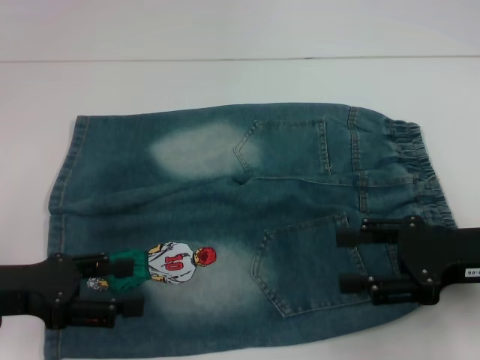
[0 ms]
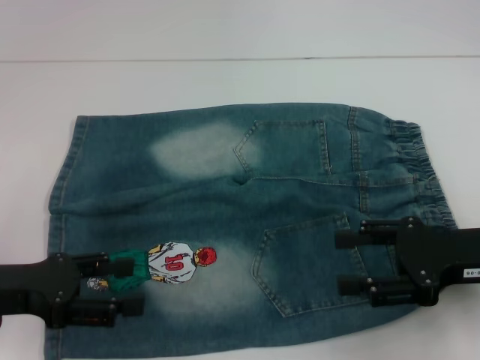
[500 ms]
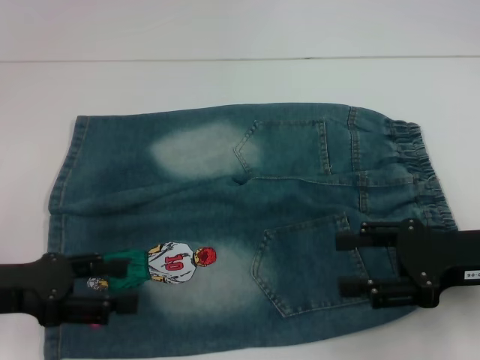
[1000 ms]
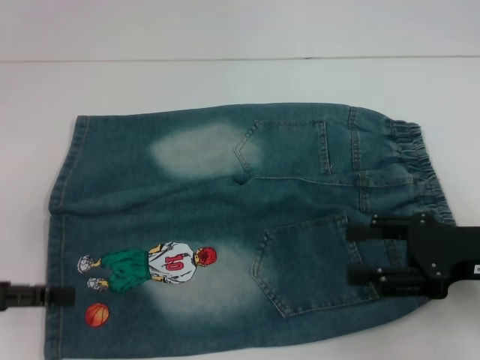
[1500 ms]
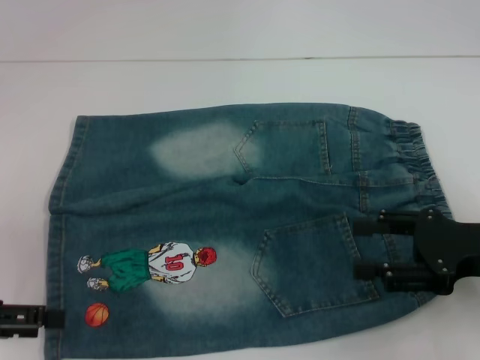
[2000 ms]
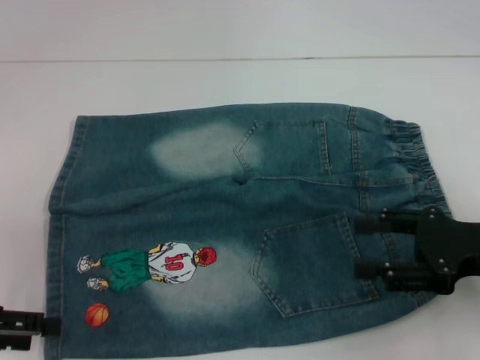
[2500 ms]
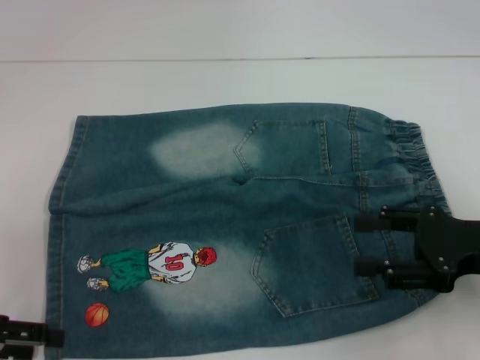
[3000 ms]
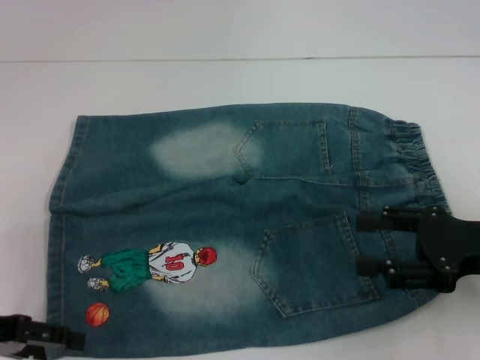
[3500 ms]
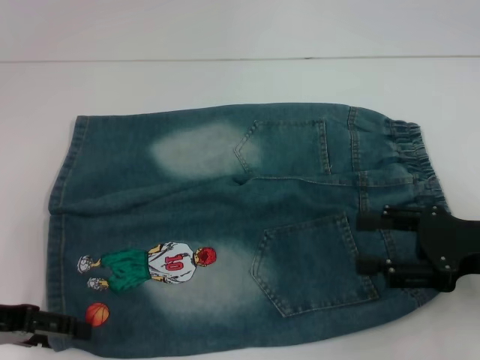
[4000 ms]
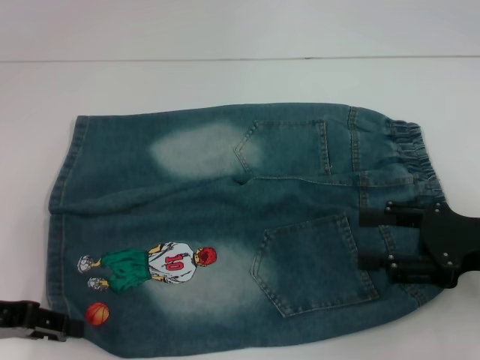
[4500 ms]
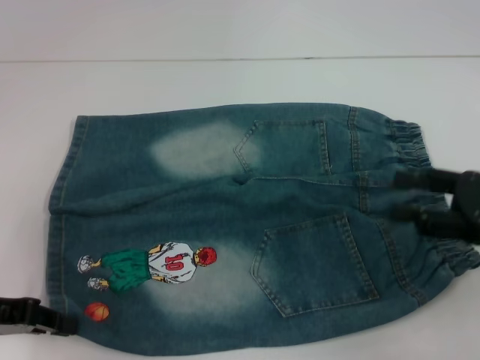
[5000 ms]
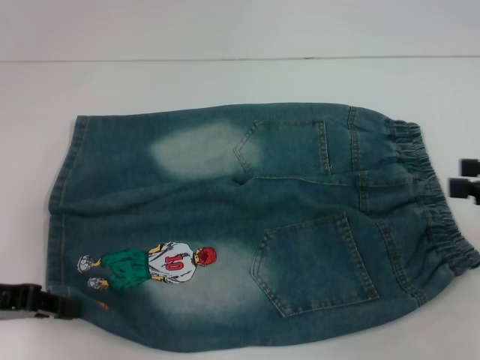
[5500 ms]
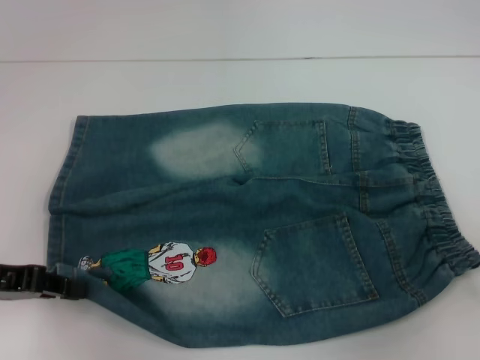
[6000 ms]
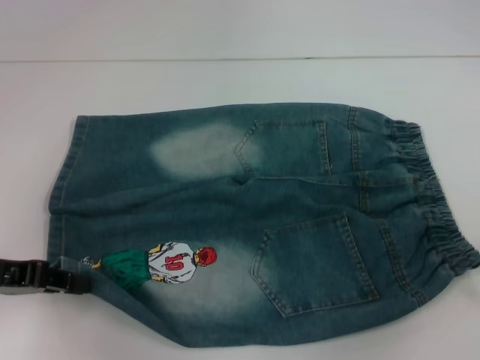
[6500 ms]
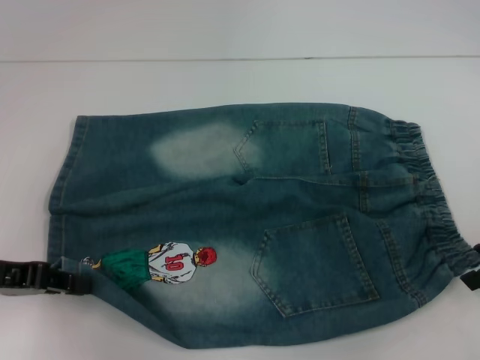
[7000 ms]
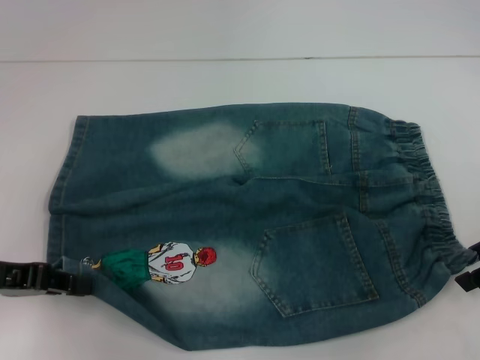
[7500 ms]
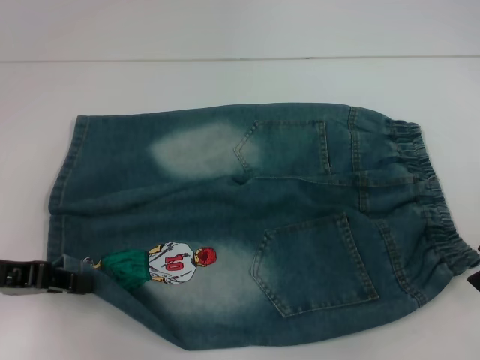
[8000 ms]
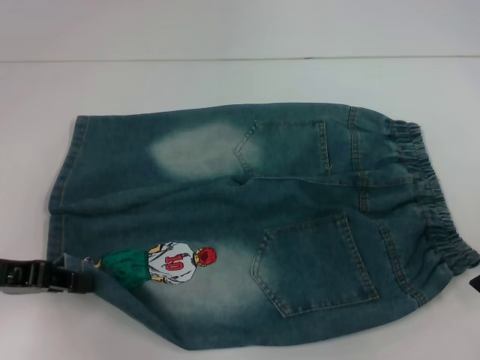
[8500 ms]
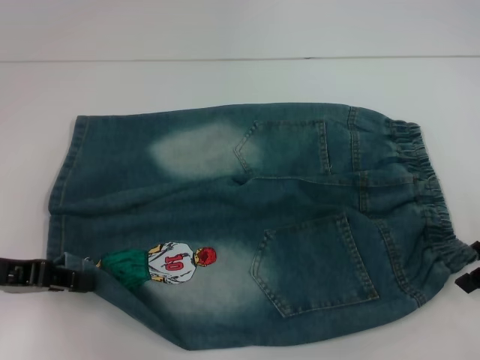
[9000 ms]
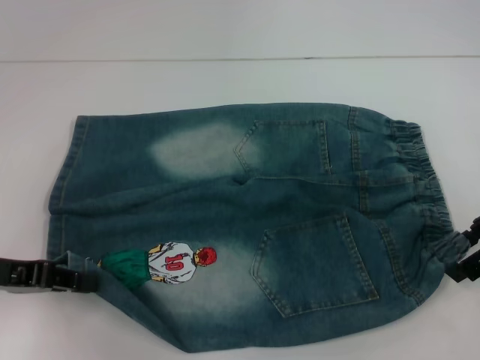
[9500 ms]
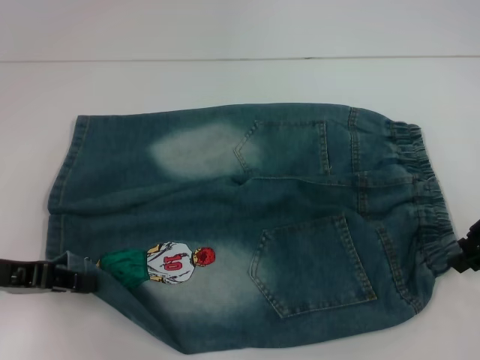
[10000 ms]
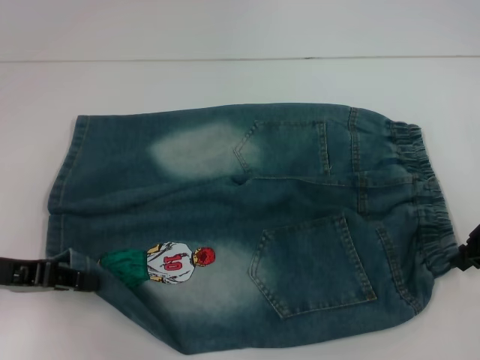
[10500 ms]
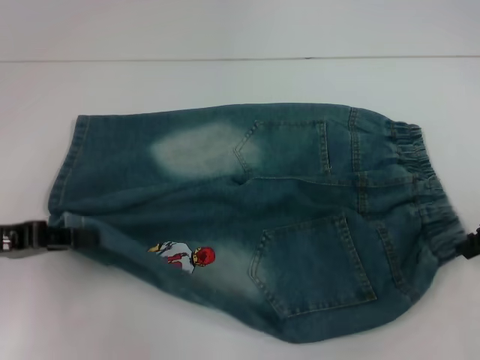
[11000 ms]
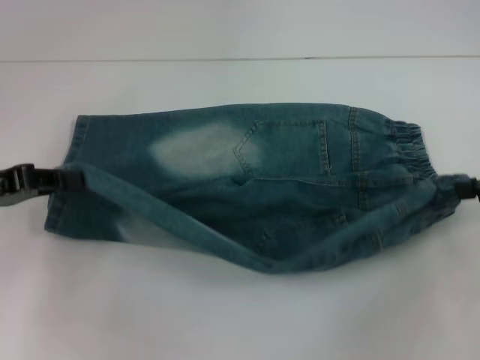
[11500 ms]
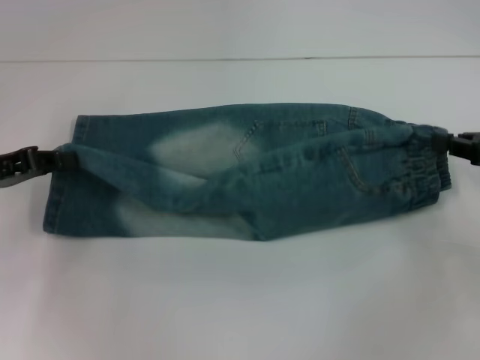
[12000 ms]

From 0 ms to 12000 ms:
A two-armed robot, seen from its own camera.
Step, from 0 ms to 4500 ms: Grab the lower left pant leg with your left hand.
Step, from 5000 ms to 10000 ms: Hold the lower right waistband with your right hand.
From 0 ms to 2000 ms: The left gripper moves to the left, approximately 5 cm.
From 2000 ms to 4000 ms: The grippers stay close to where they were, moving slightly.
From 4000 ms to 6000 ms: The right gripper heads to the right and upward, covering some 10 cm, while the left gripper closes up.
From 8000 ms to 10000 ms: The right gripper closes.
From 10000 ms to 12000 ms: The left gripper changes place by some 5 cm; the right gripper shifts roughly 5 cm to the right, and closes its fingers.

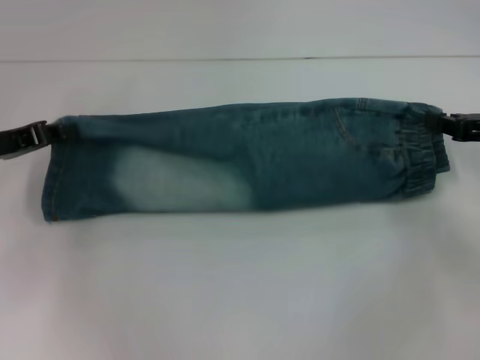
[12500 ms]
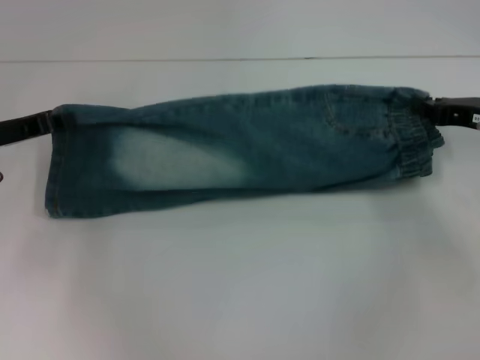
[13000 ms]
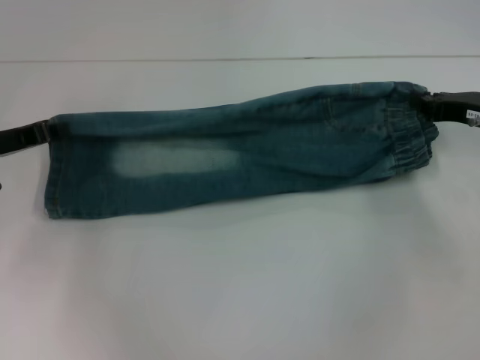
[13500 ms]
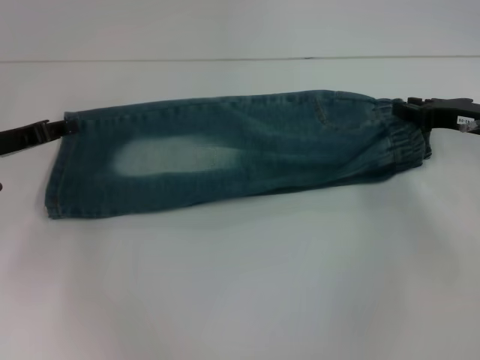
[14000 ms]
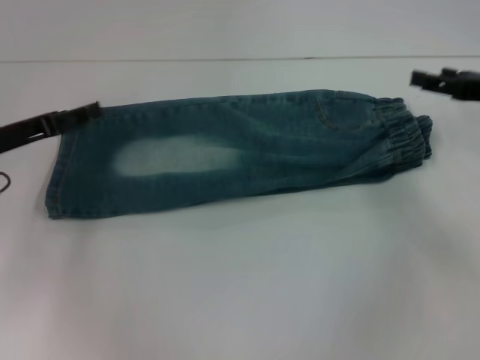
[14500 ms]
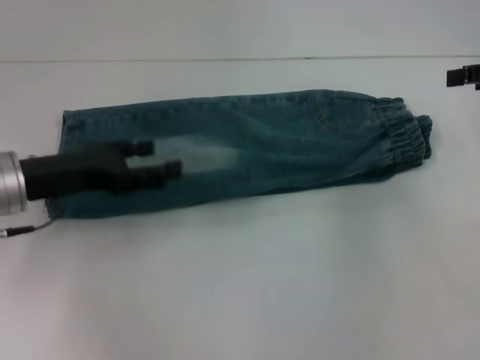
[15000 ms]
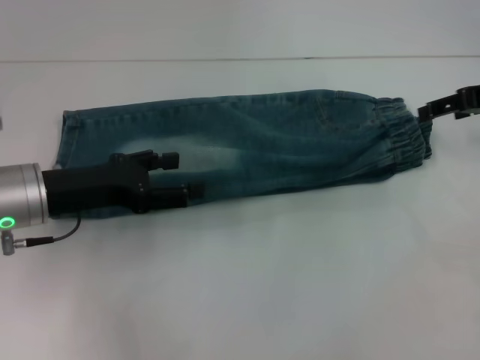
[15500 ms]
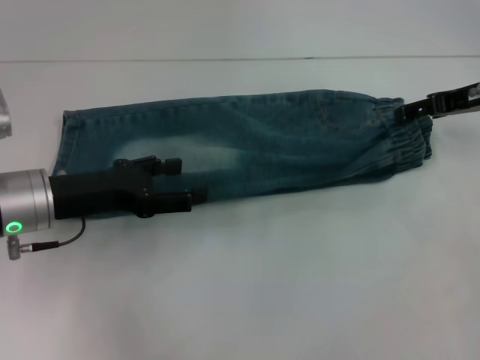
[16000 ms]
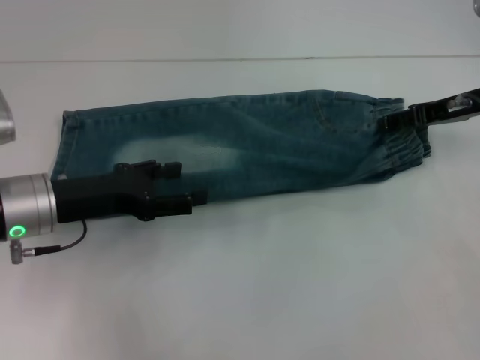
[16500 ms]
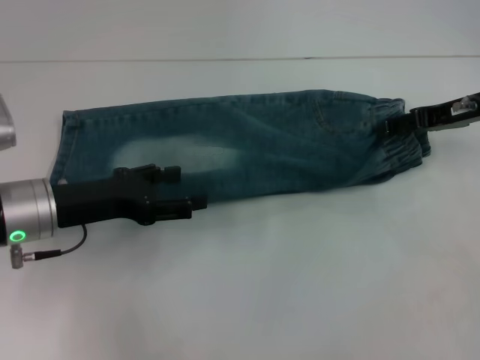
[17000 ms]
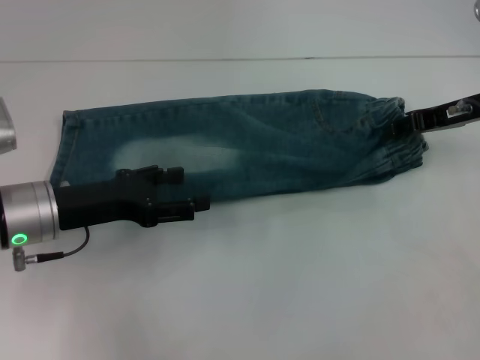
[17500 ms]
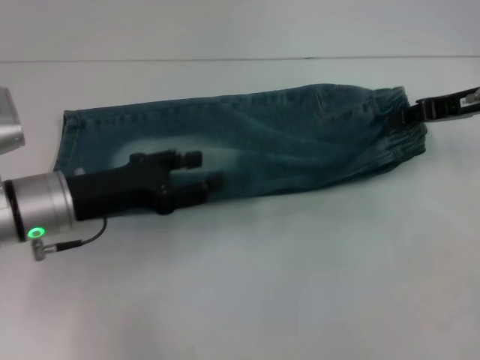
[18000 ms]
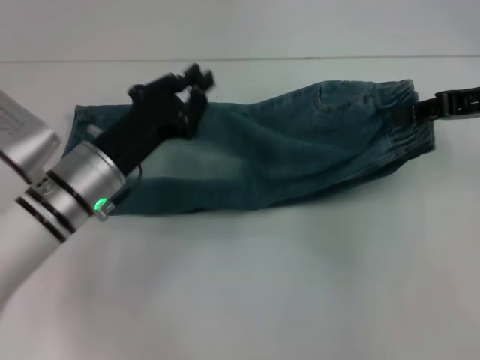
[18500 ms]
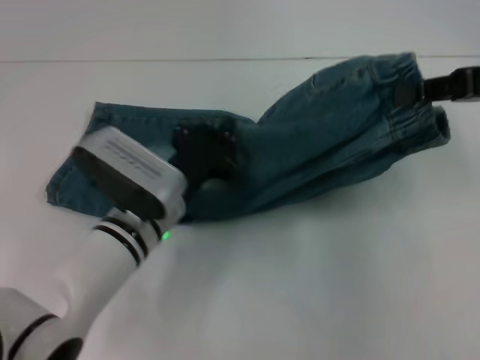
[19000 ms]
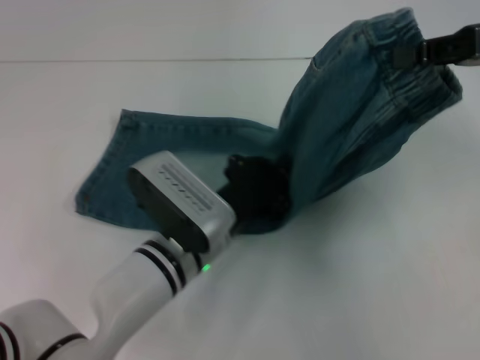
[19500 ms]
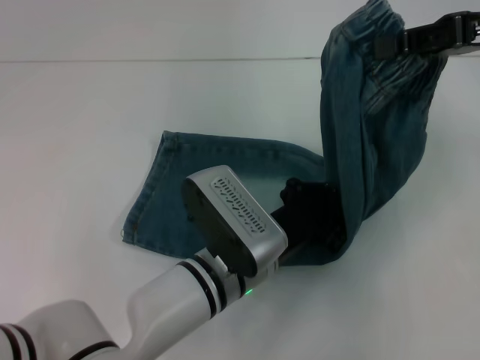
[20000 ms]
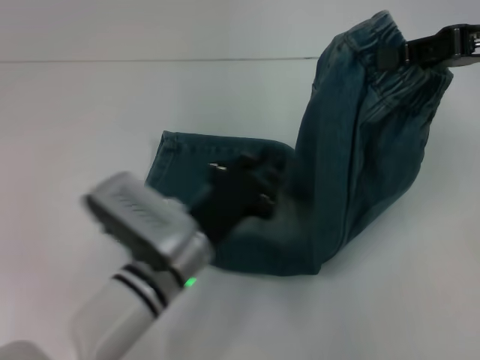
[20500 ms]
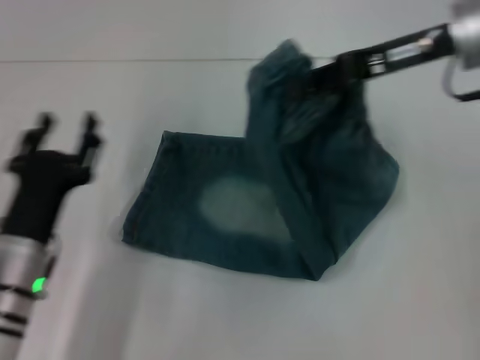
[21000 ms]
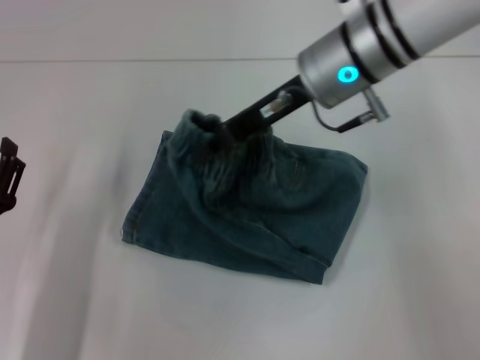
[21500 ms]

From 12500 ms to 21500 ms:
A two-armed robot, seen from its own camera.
Step, from 14500 ms to 17500 ms: Grab the waistband with your right hand.
Step, from 18000 ms to 20000 ms: Press the middle of the pants with your left hand.
From 12500 ms to 14500 ms: The left gripper opens; the right gripper opens up.
From 14500 ms to 17000 ms: The left gripper shifts about 5 cm to the right; the right gripper travels to the left by roughly 5 cm.
From 17000 ms to 19500 ms: The right gripper travels upward and backward by approximately 10 cm, and closes; the left gripper shifts approximately 15 cm to the right, and closes.
From 19500 ms to 21500 ms: The grippers both shift to the left by some 20 cm. The left gripper opens its fingers.

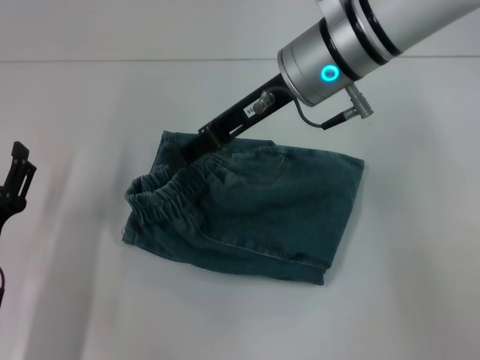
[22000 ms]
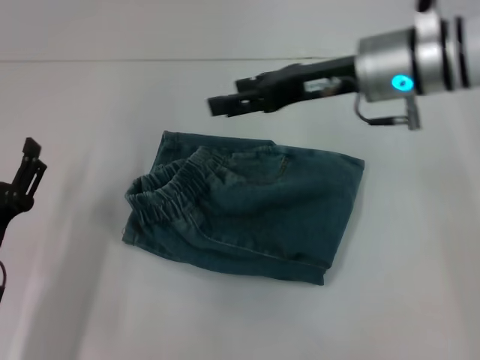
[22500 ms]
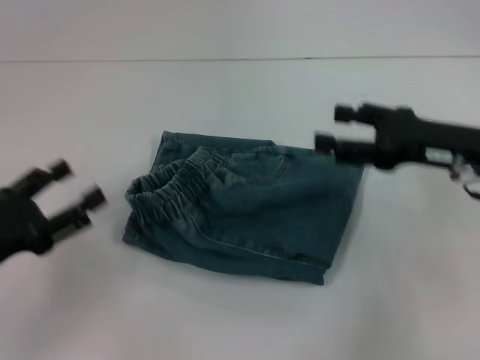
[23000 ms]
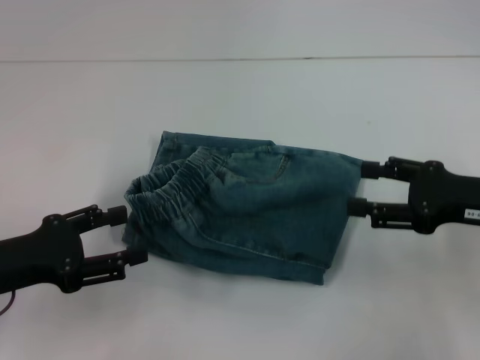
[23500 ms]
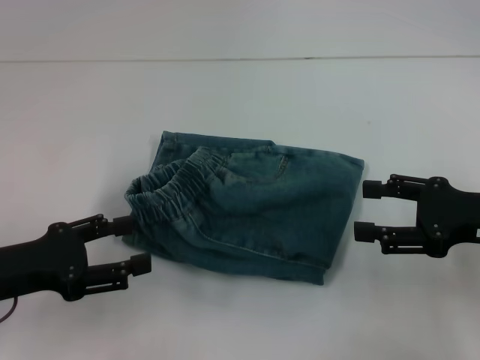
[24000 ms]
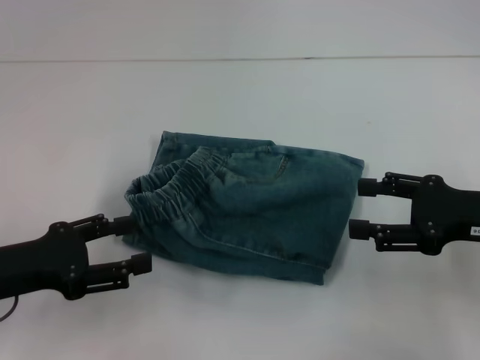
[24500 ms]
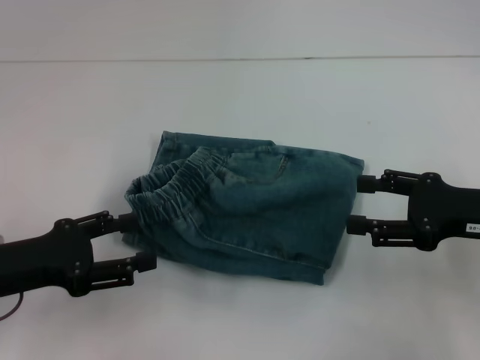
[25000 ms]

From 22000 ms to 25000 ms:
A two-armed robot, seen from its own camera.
From 22000 ms to 23500 ms: The right gripper travels to the right, backward and downward by about 25 cm, and opens its fingers, while the left gripper goes some 10 cm upward.
From 23500 ms to 25000 ms: There are only small adjustments of the grippers.
